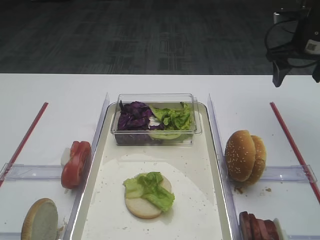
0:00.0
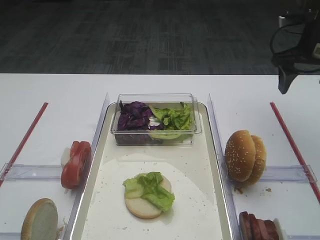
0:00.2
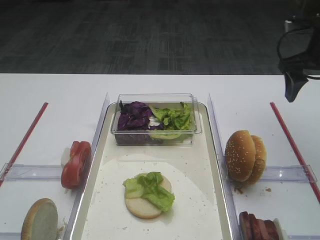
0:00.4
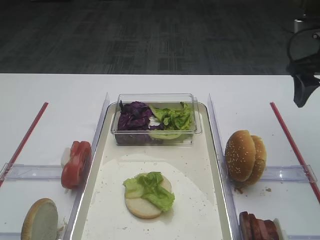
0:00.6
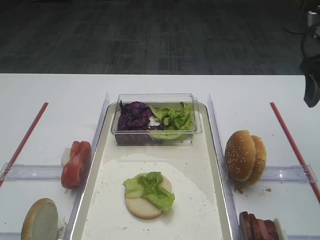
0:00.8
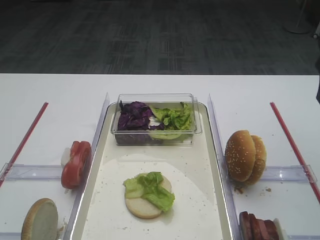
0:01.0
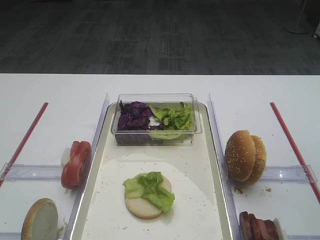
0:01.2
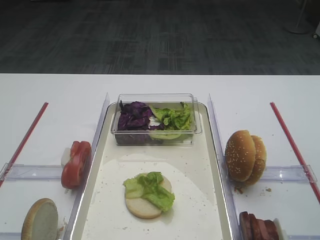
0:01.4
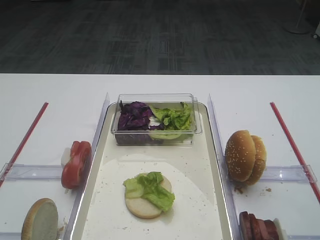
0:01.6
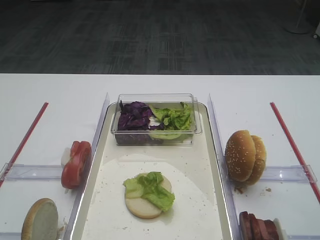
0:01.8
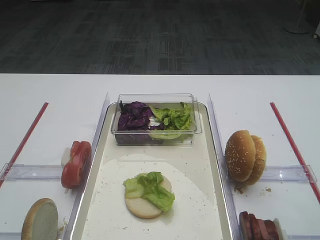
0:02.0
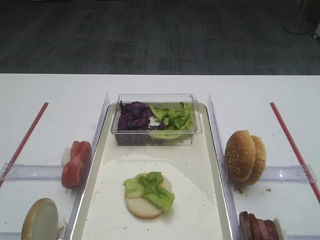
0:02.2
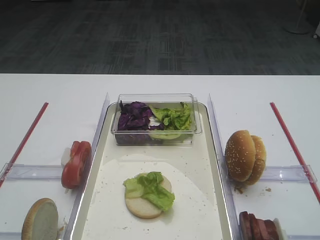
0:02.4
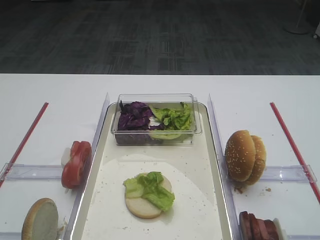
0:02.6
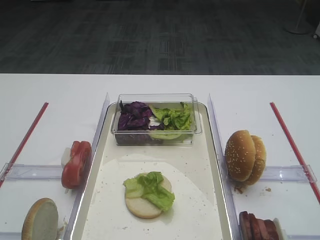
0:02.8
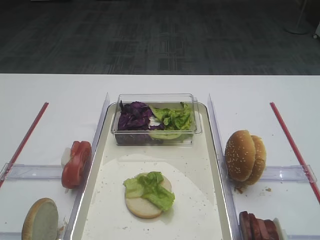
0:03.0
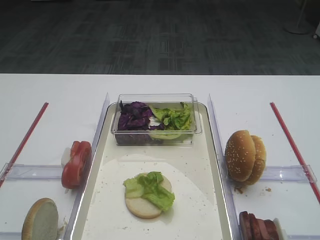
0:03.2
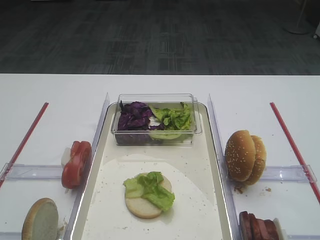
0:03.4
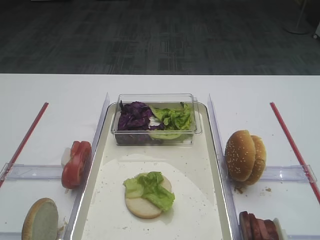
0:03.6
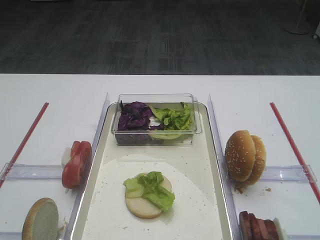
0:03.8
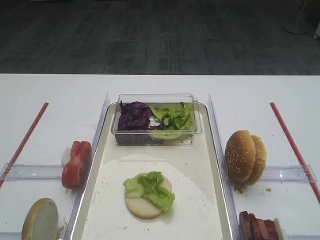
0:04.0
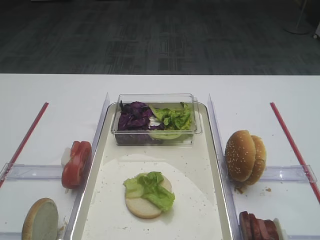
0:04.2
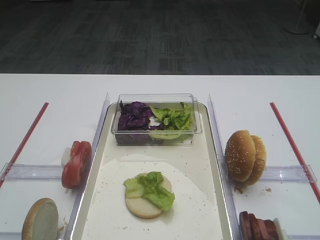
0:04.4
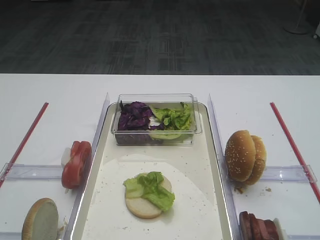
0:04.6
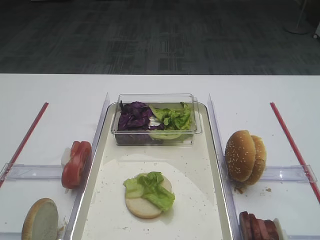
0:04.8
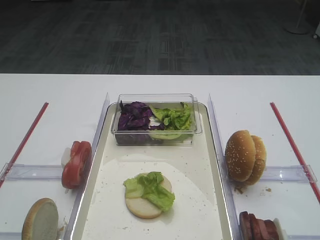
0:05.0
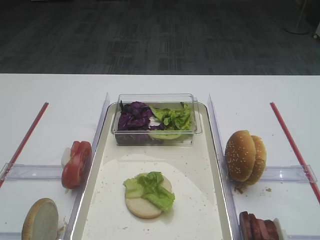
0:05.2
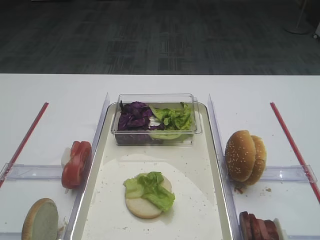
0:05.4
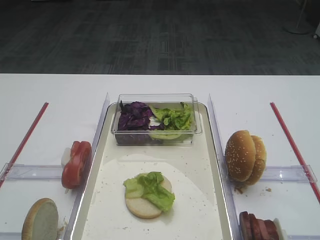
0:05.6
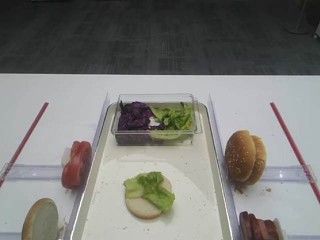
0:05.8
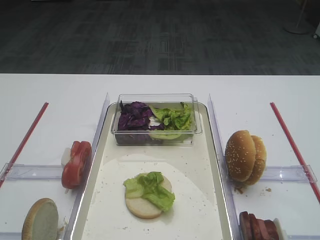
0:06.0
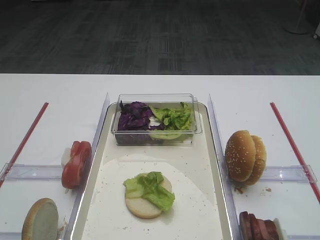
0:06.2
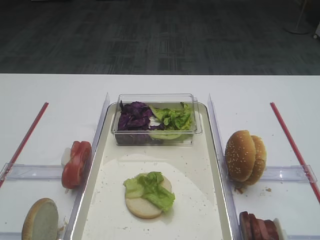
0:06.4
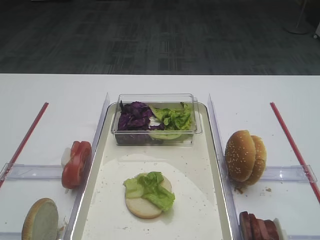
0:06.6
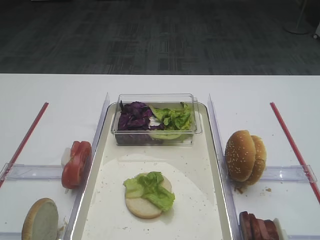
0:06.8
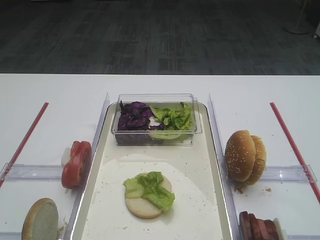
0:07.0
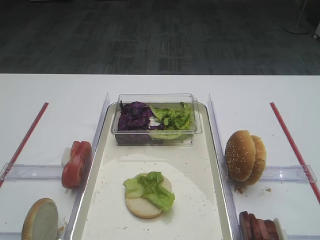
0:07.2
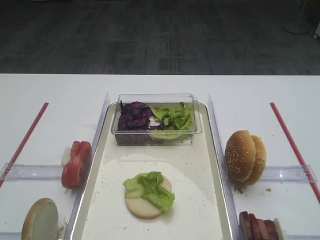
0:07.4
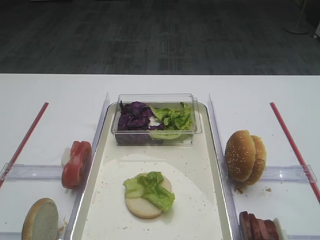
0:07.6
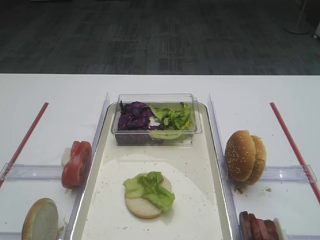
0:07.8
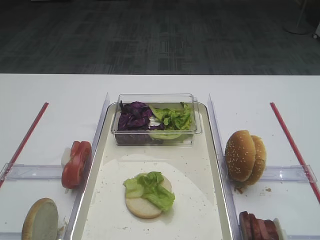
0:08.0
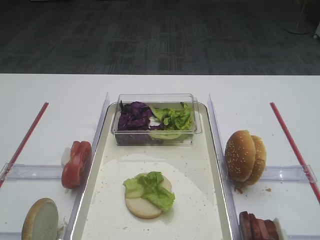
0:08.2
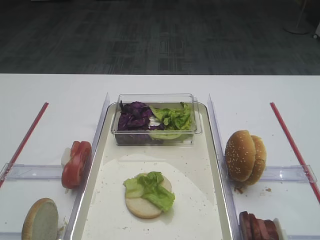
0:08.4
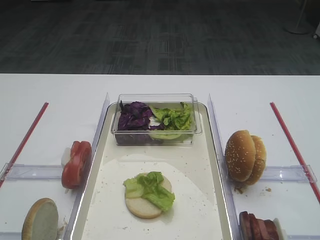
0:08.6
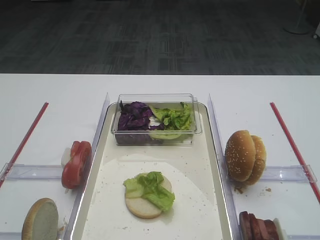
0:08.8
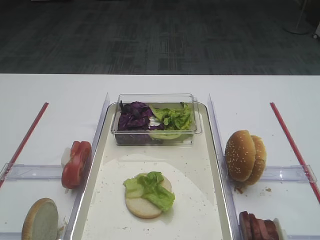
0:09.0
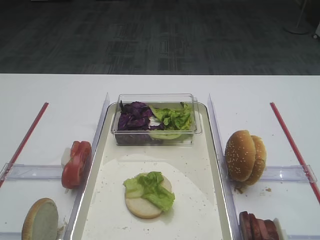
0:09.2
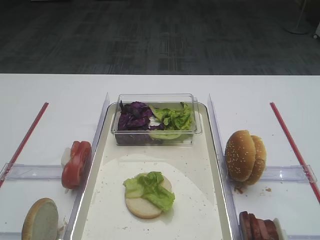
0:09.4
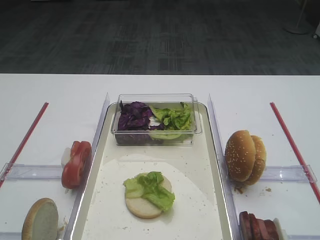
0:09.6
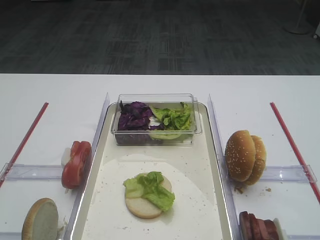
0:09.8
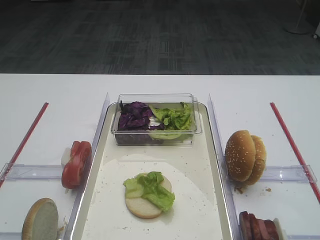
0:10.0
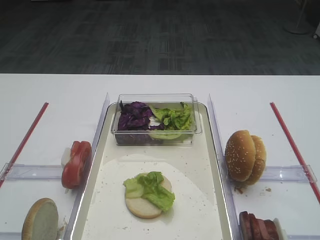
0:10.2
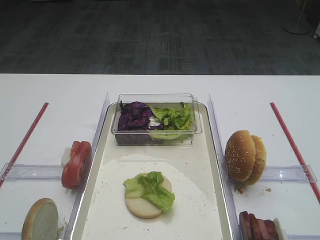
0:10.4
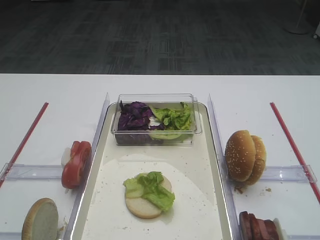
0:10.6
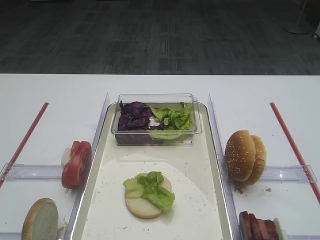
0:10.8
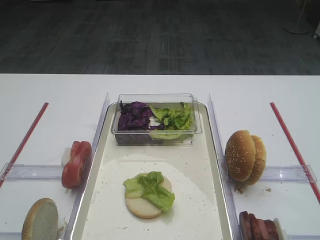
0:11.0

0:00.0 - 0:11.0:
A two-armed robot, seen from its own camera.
0:00.0 - 0:01.6: The right gripper heads backward, covering roughly 25 cm.
0:04.8 - 0:11.0: The two grippers keep their place.
